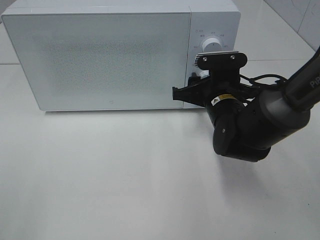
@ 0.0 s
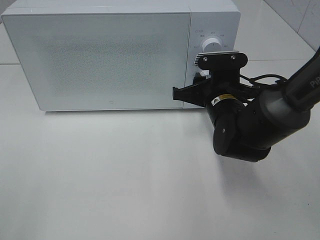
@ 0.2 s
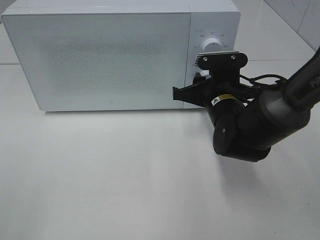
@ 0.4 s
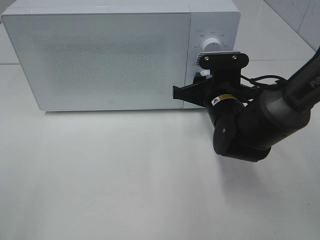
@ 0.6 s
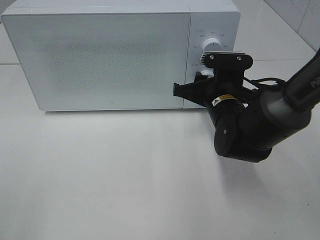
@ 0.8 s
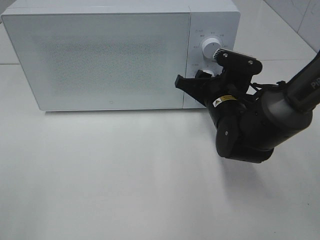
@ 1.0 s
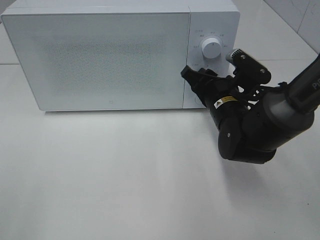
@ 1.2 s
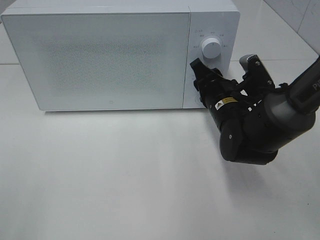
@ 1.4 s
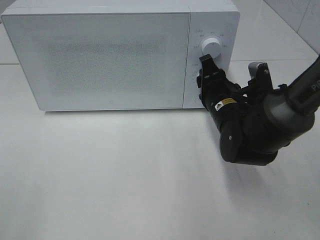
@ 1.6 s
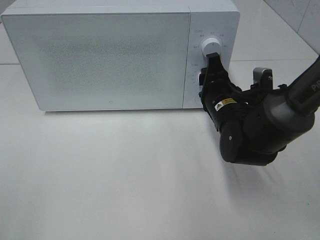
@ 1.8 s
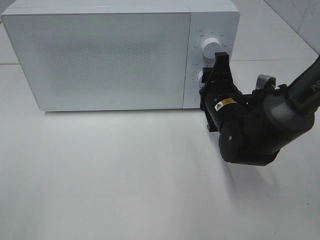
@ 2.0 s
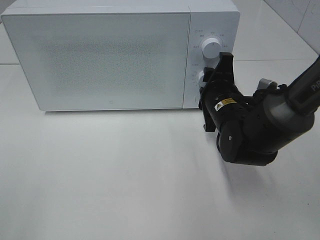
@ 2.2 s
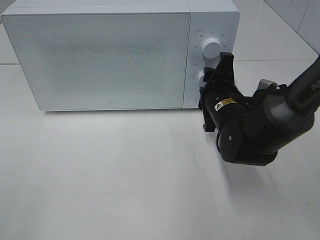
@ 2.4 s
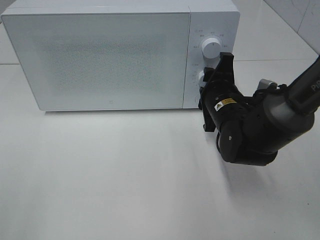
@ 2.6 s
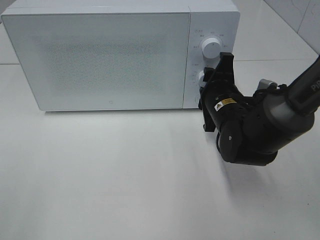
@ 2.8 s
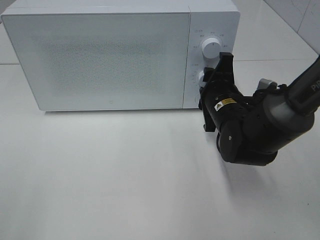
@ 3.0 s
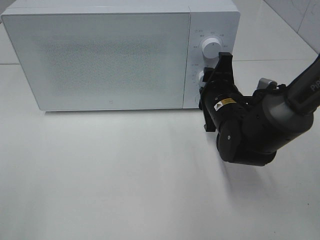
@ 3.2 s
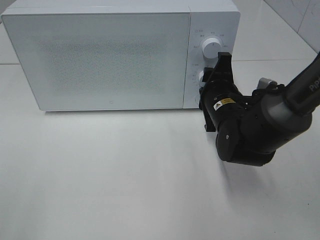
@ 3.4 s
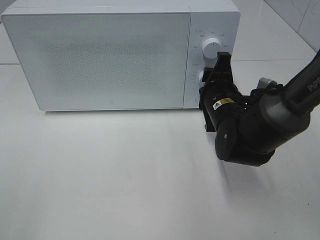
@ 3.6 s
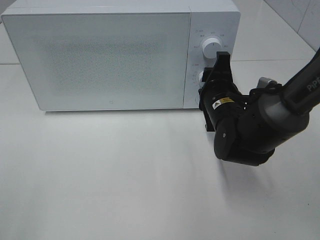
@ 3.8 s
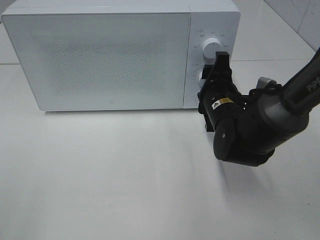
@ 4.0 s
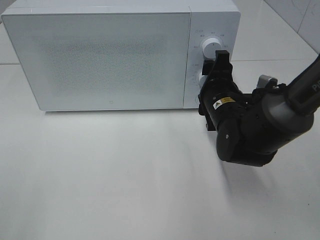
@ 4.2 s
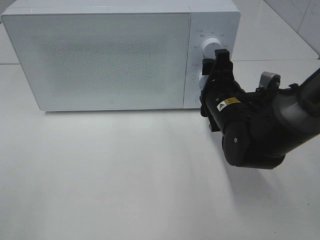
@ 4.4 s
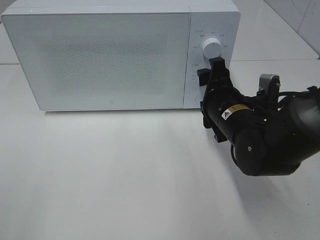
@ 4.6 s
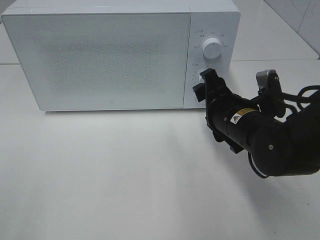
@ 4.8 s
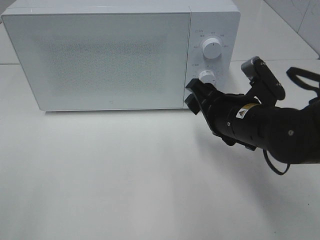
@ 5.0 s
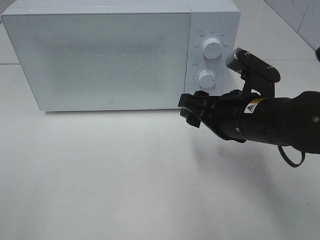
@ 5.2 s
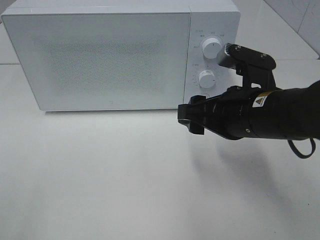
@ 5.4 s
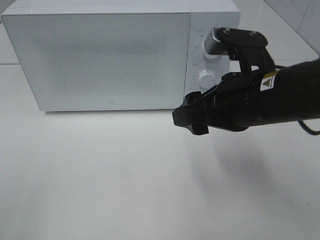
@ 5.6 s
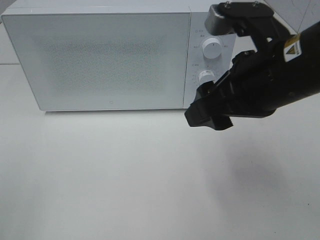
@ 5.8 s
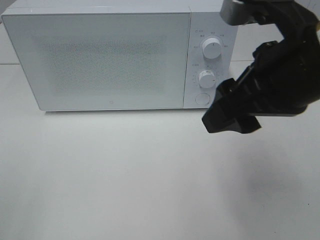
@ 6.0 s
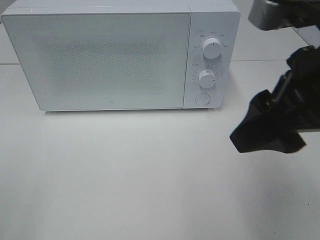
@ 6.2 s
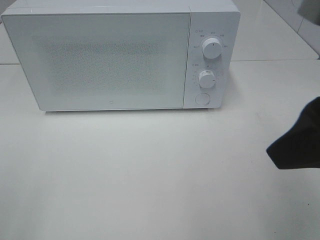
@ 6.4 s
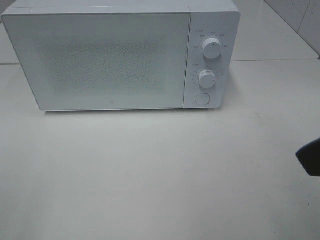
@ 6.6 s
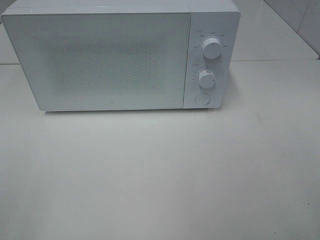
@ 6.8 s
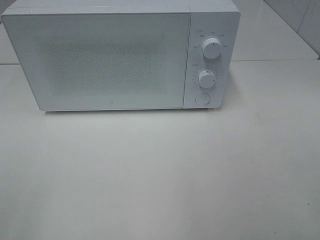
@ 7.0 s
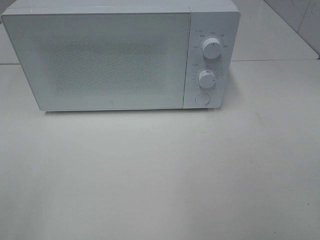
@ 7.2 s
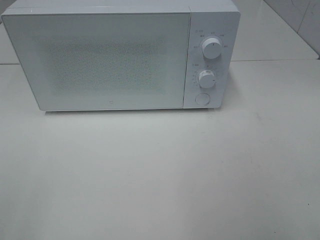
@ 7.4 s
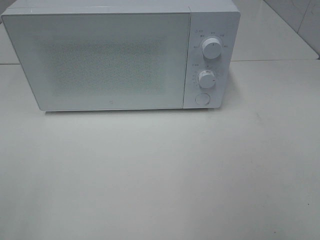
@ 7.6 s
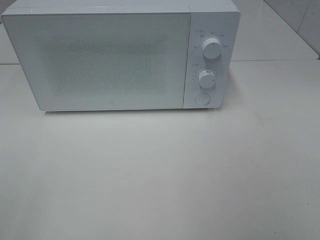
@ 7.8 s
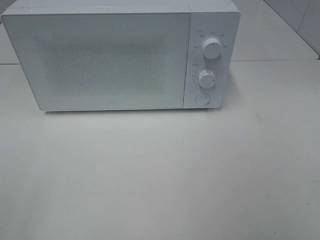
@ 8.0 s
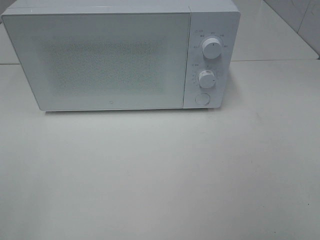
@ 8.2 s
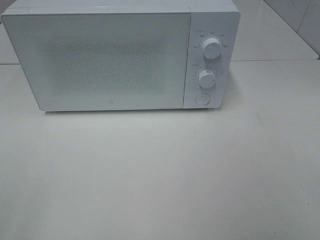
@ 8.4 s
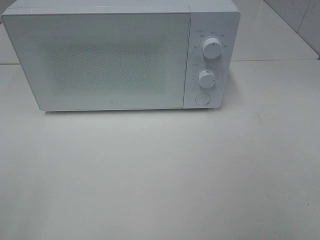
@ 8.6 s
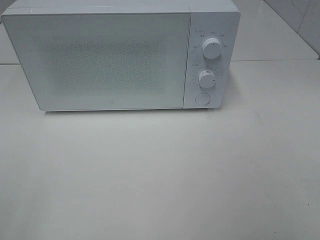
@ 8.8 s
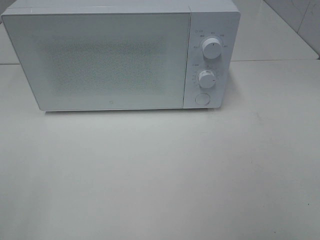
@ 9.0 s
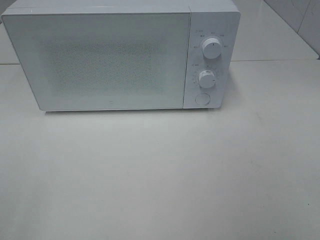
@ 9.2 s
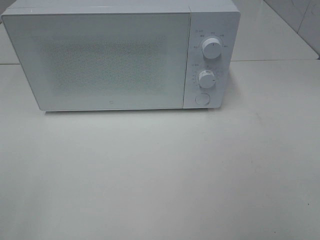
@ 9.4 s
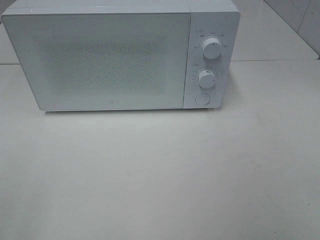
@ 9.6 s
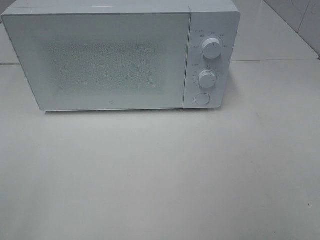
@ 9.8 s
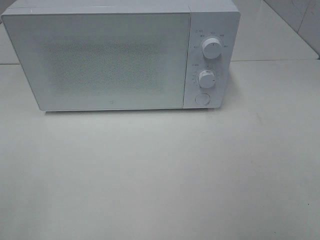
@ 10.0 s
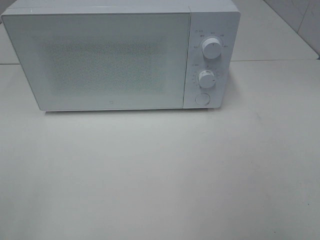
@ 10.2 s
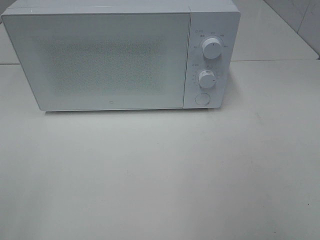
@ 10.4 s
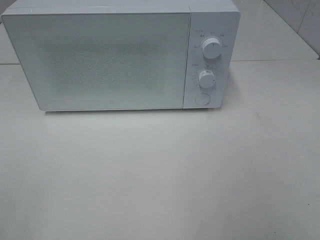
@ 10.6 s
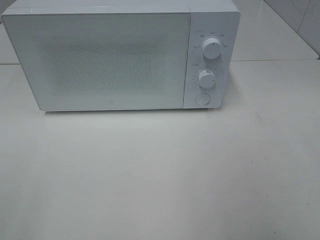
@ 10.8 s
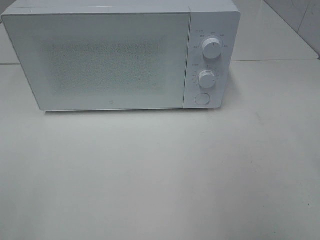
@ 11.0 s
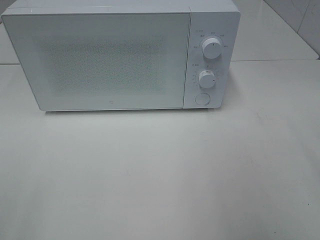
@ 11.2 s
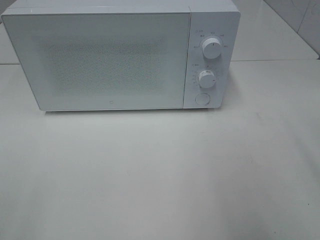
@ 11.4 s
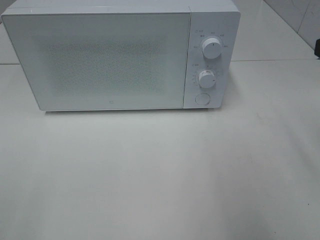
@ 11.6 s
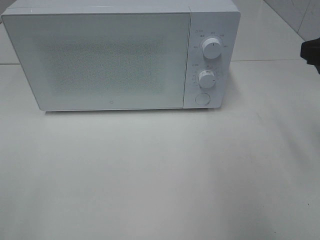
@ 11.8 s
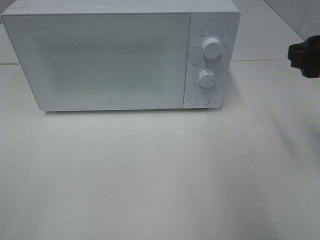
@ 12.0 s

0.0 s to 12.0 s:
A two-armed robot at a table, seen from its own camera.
Task of the whole recording: Heat the burger.
Step, 0.0 to 4.0 s: Right hand: twist timer button.
3.0 to 4.4 s: There are only small adjustments of the grippers.
4.4 to 6.0 s: The right gripper moves upward and backward, approximately 20 cm.
6.0 to 7.6 s: The right gripper moves backward and to the right, roughly 20 cm.
10.4 to 12.0 s: The right gripper heads forward, covering approximately 20 cm.

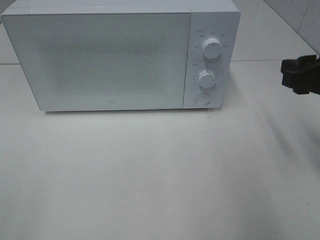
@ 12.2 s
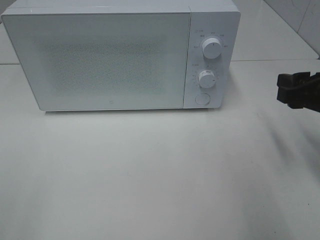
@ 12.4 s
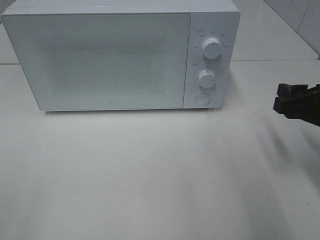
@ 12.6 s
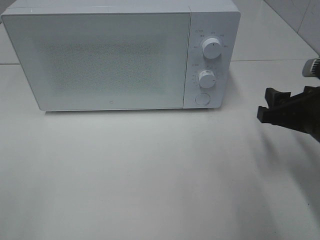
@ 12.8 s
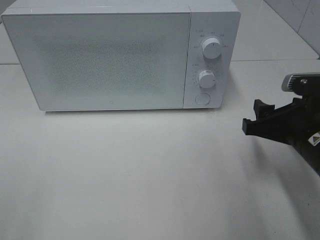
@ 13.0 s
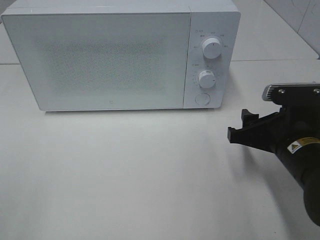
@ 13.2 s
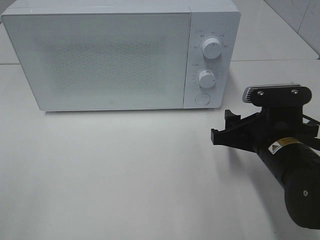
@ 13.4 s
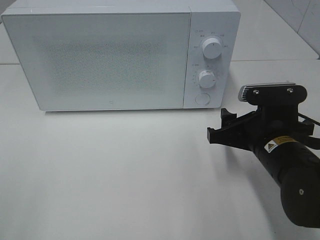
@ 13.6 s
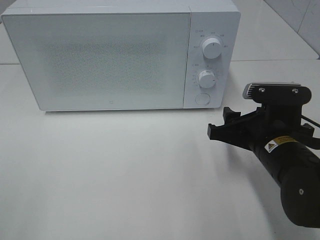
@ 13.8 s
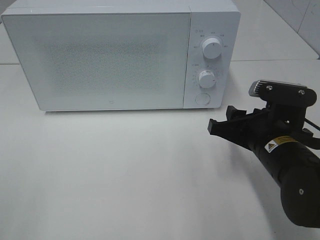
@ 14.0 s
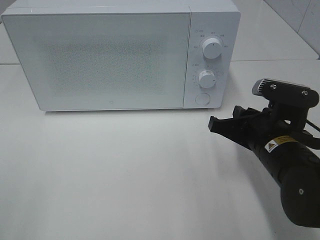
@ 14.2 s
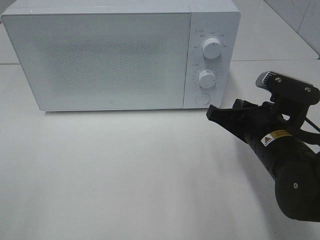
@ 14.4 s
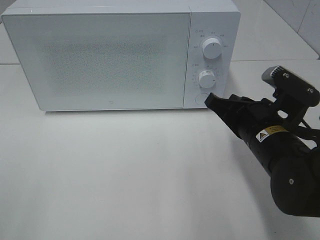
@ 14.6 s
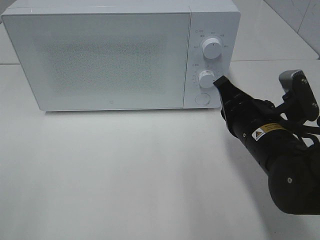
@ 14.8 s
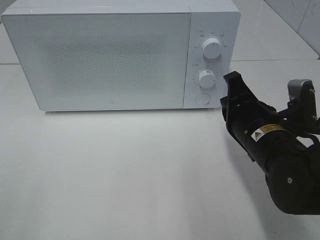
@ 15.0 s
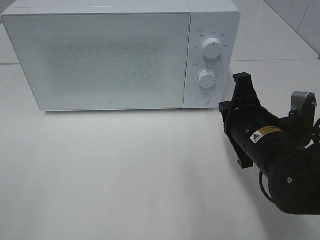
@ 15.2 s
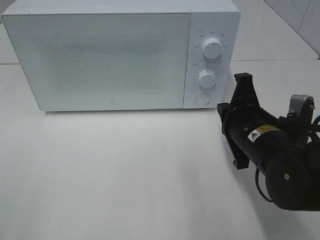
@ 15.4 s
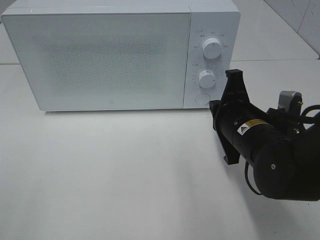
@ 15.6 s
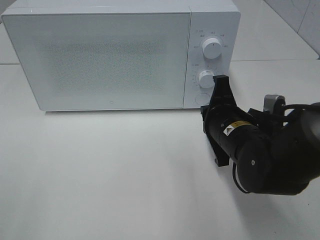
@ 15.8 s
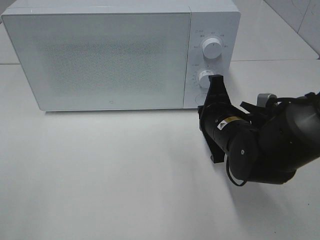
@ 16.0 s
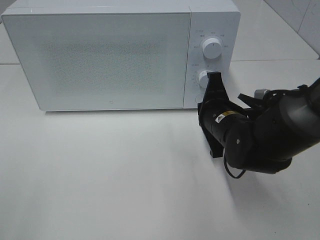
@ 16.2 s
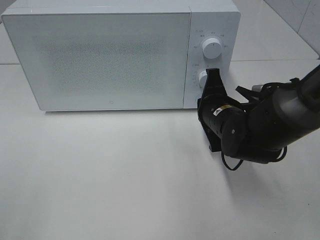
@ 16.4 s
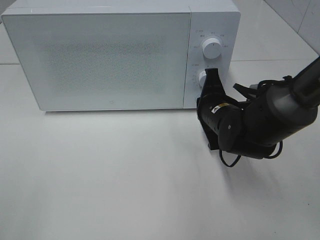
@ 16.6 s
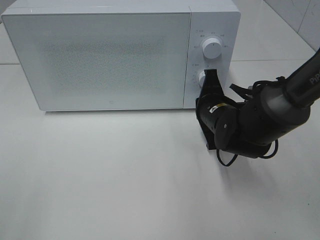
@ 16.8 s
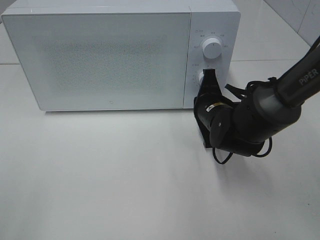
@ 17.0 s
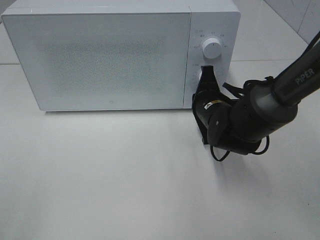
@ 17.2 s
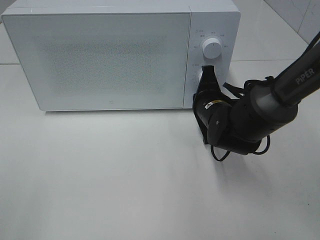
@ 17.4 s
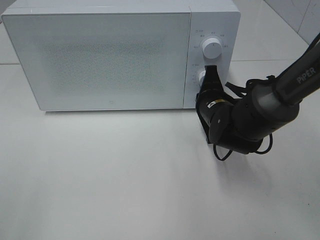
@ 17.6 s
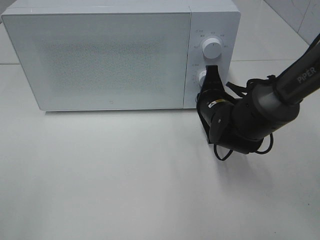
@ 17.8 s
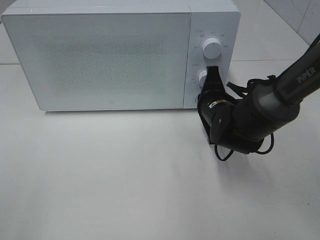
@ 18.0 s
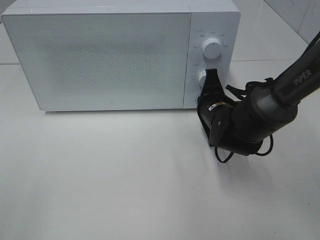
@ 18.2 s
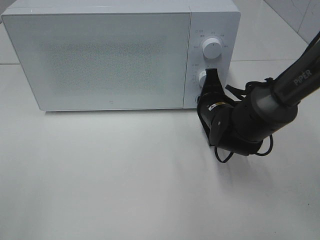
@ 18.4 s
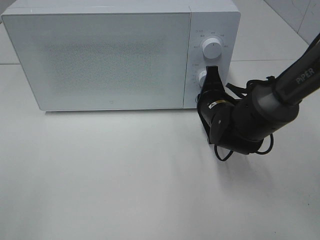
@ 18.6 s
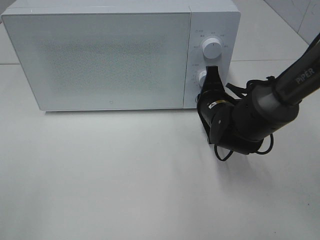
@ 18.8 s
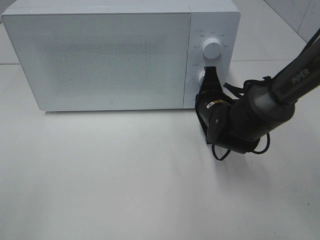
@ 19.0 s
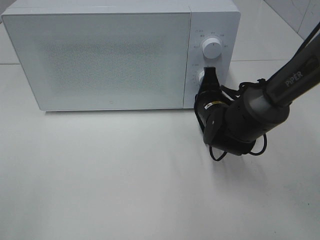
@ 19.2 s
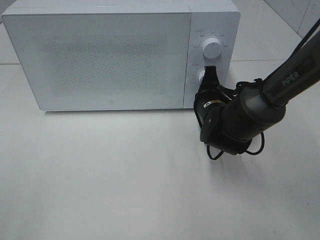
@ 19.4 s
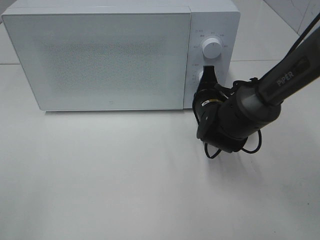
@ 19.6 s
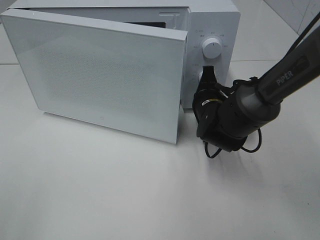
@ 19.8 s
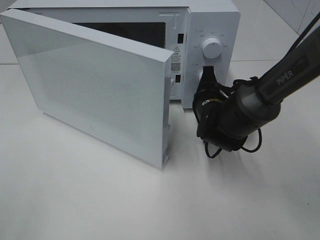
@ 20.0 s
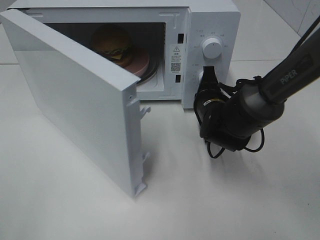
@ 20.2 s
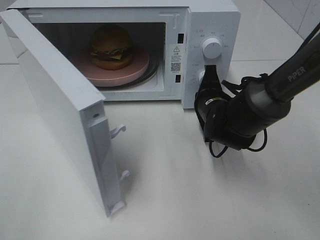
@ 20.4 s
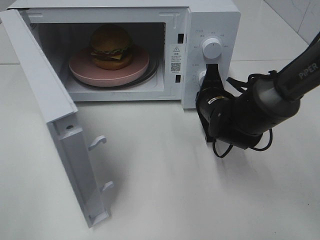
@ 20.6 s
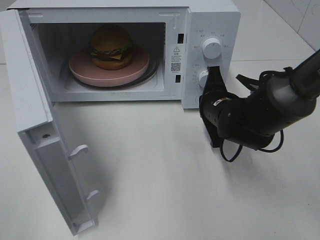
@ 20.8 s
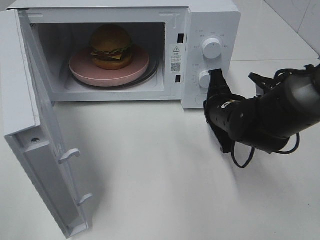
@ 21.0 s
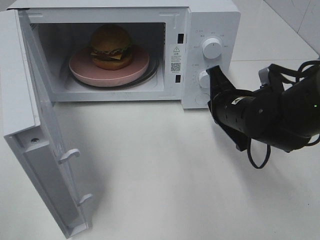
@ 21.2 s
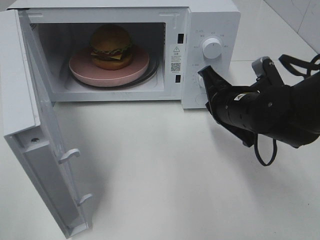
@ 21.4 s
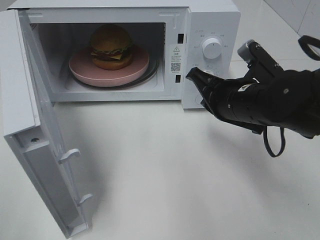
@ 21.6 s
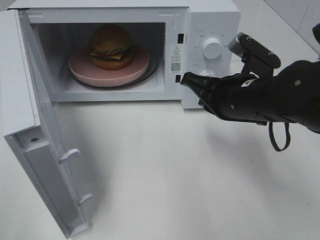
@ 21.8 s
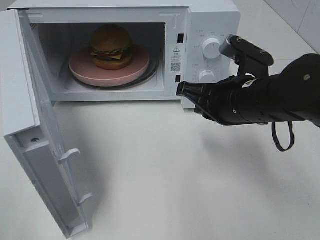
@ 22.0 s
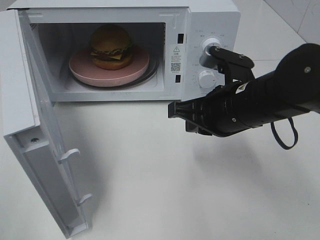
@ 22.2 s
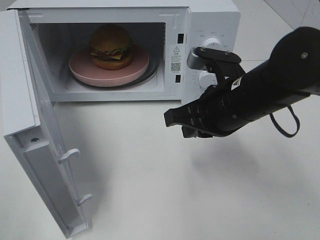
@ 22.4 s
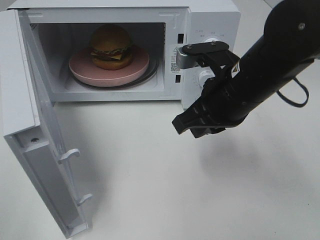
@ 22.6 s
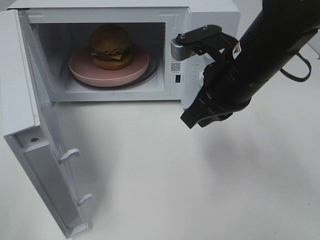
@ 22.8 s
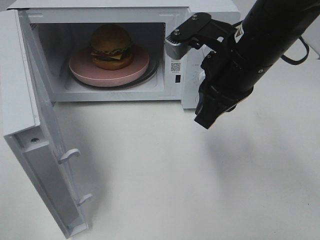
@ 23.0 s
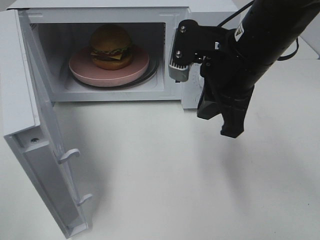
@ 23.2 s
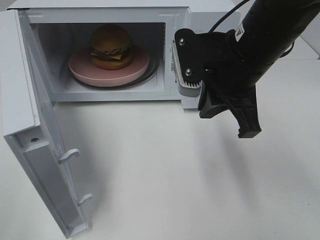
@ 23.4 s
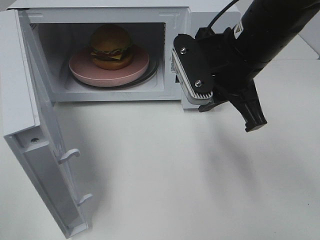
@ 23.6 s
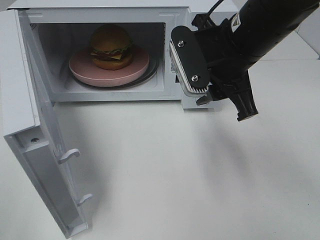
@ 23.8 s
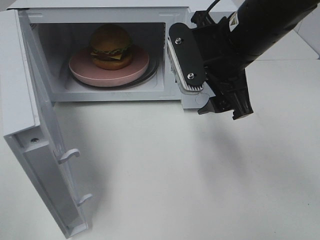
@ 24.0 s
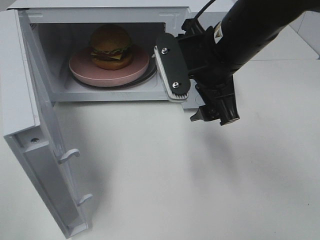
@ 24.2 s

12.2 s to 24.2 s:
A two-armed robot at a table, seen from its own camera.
Task of the whole recording: Heat the burger.
Step, 12.2 to 21.0 s: Right hand: press the switch.
12.2 to 13.8 s: The right gripper moves downward and to the left, approximately 15 cm.
13.8 to 15.2 s: The right gripper closes up.
15.2 to 16.6 s: The right gripper heads forward, covering some 10 cm.
16.6 to 19.8 s: The grippers move only a little.
19.8 to 21.2 s: The right gripper moves backward, approximately 5 cm.
21.2 to 22.6 s: The right gripper shifts some 10 cm upward.
22.6 to 24.2 s: The right gripper ends up some 5 cm from where it was, and opens up.
